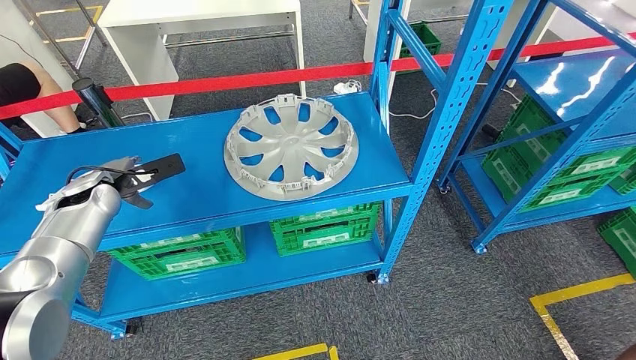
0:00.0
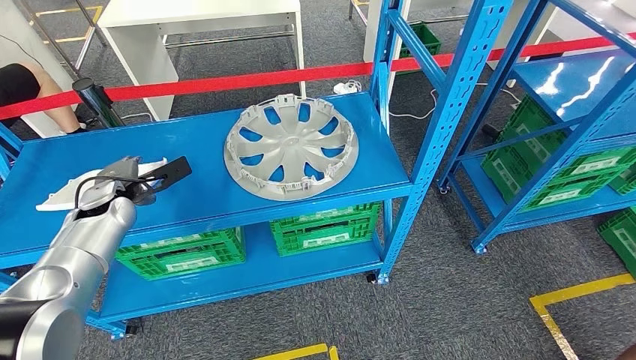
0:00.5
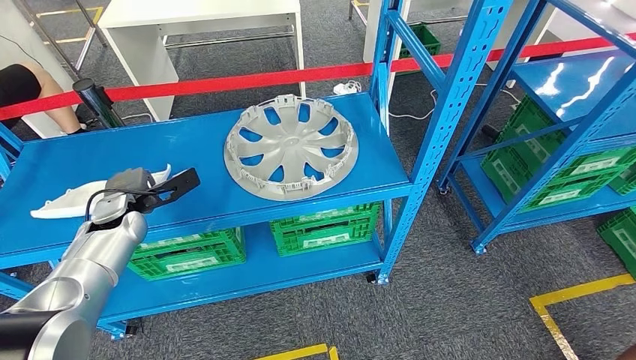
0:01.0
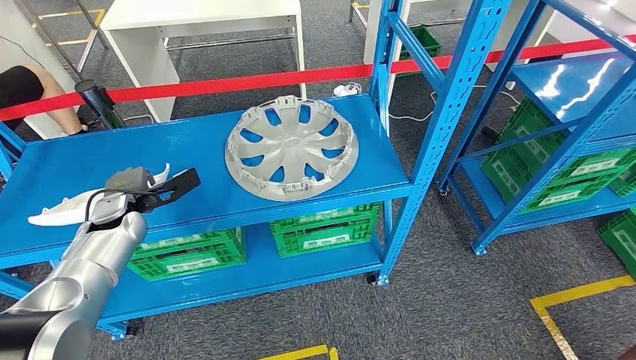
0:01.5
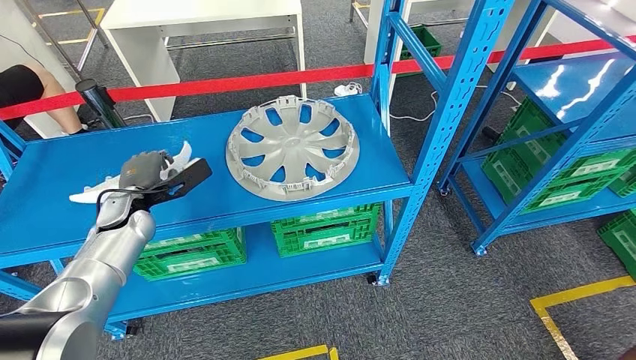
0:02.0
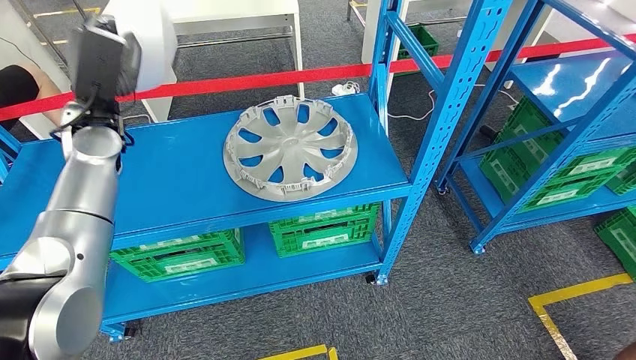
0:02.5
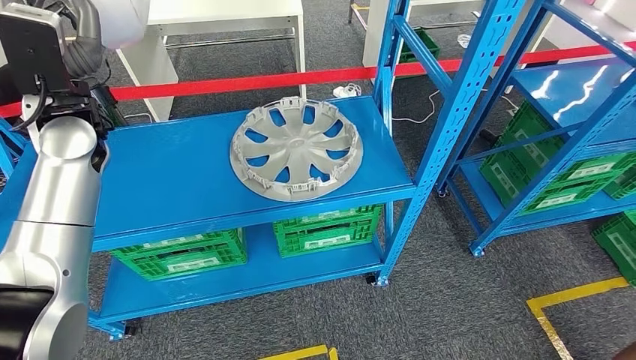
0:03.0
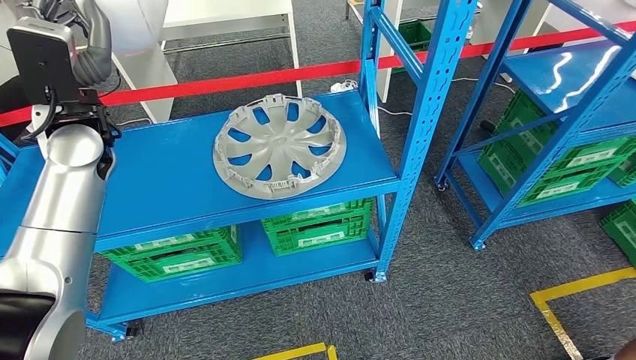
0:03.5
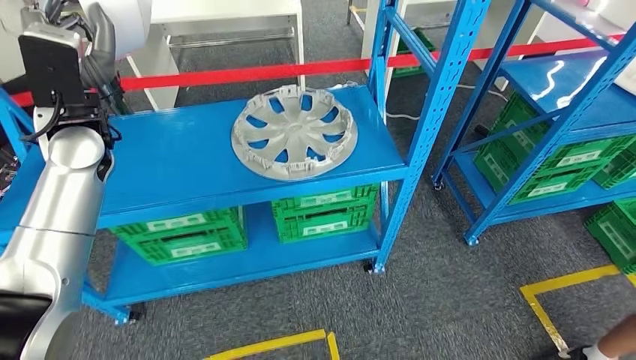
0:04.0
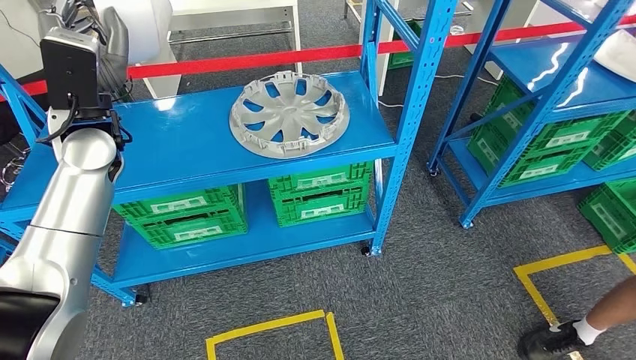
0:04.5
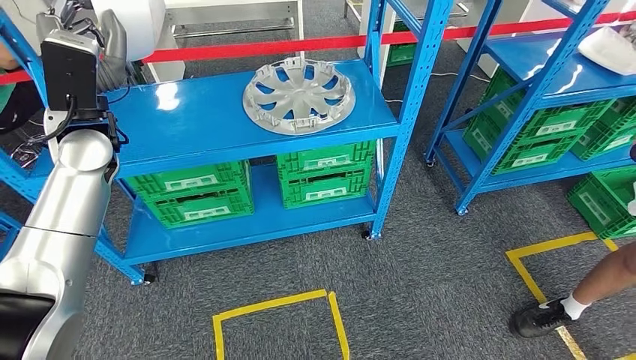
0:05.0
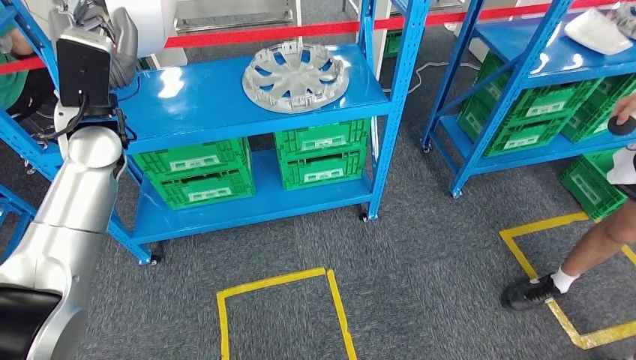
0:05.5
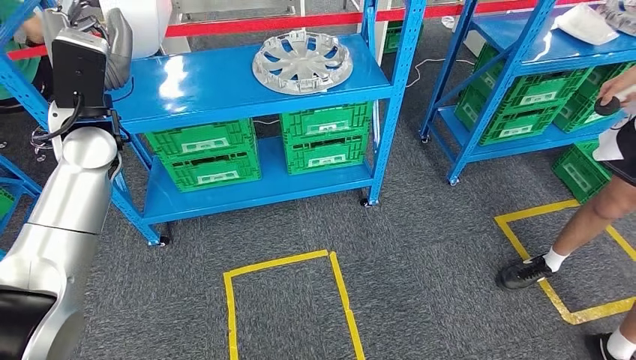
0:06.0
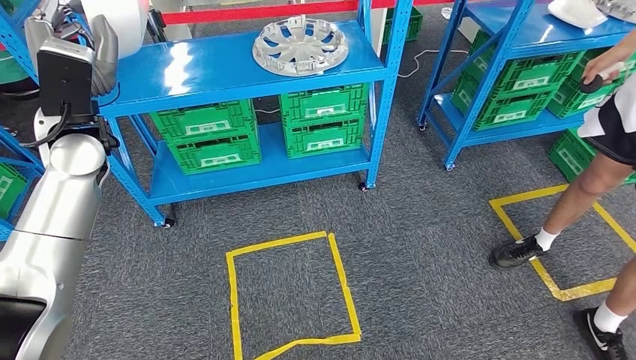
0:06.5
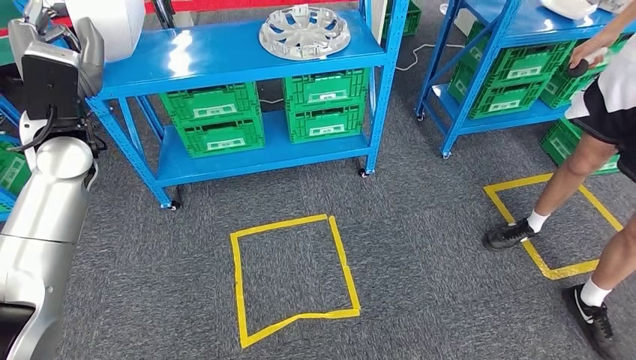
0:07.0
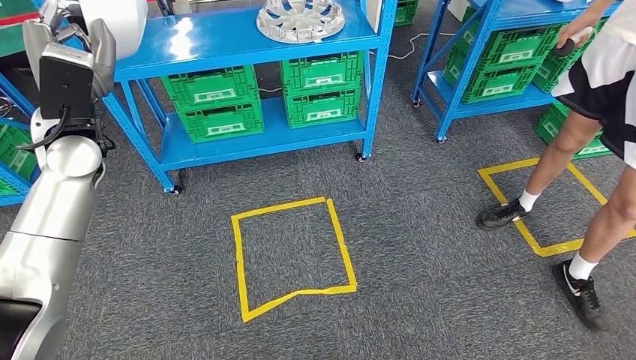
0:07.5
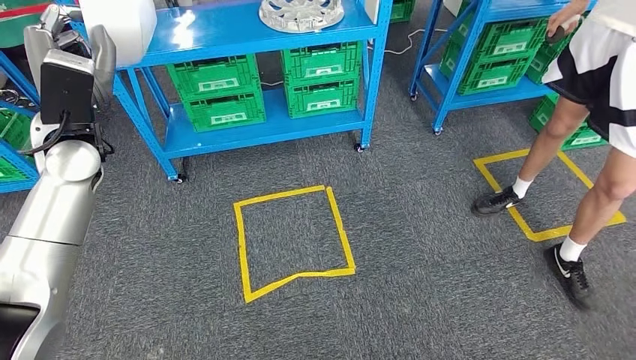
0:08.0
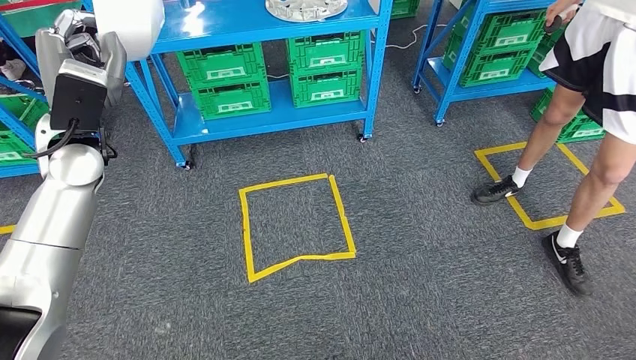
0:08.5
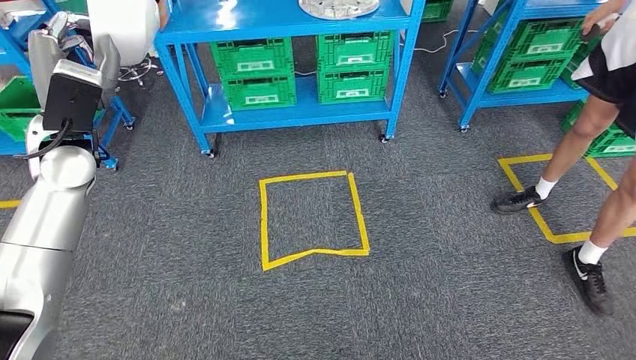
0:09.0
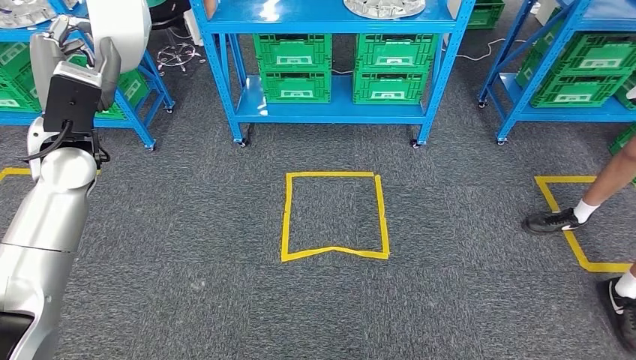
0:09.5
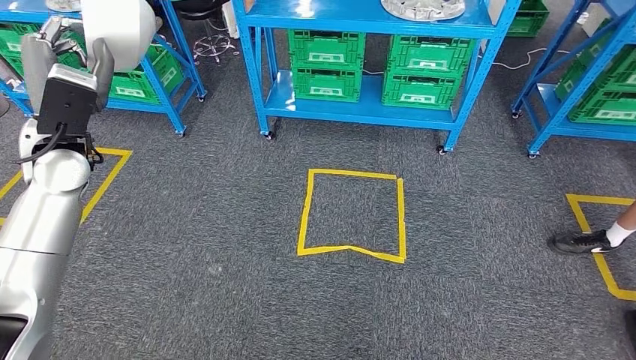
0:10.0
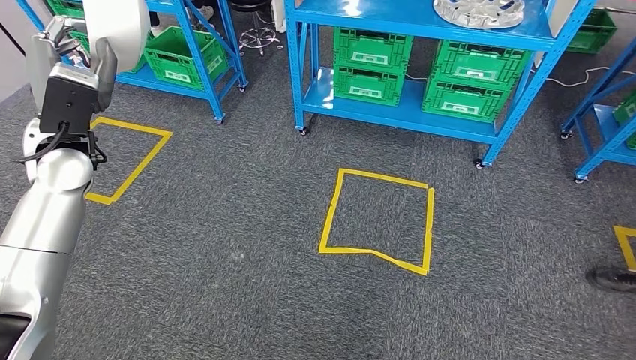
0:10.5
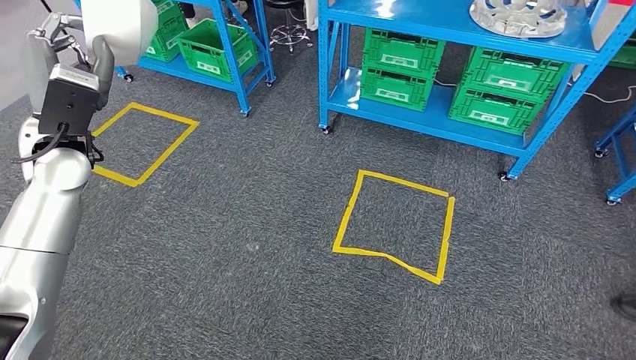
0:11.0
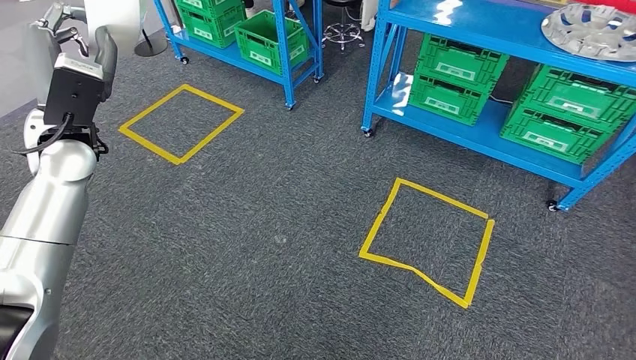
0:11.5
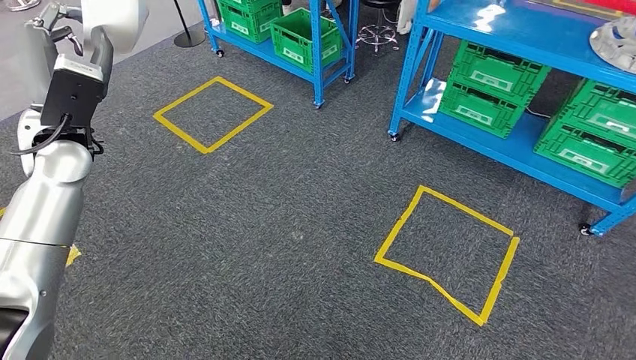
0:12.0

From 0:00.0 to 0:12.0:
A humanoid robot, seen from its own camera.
Step, from 0:00.0 to 0:03.5: Pick up the small parts from the shelf.
From 0:00.0 to 0:02.0: The left hand heads to the right, covering roughly 5 cm.

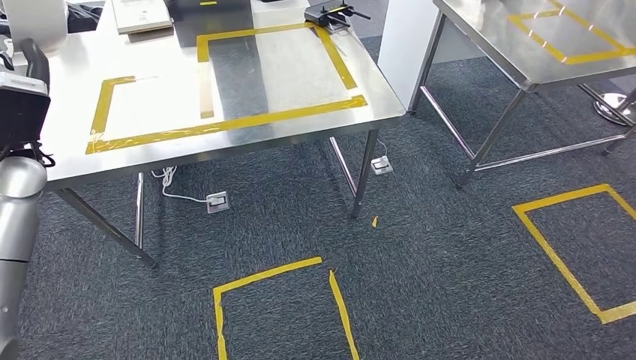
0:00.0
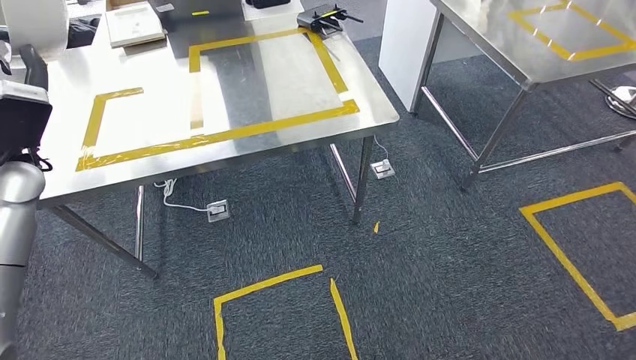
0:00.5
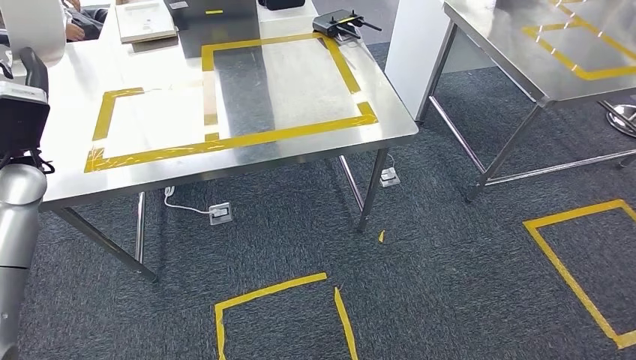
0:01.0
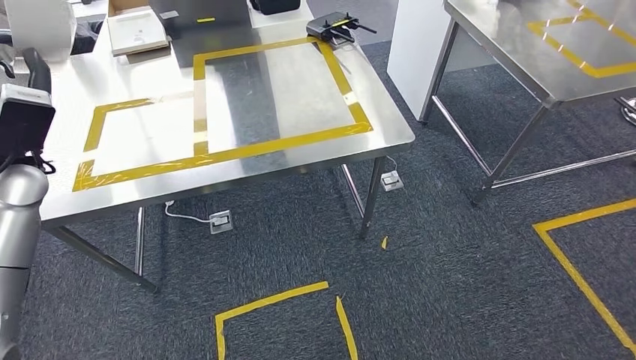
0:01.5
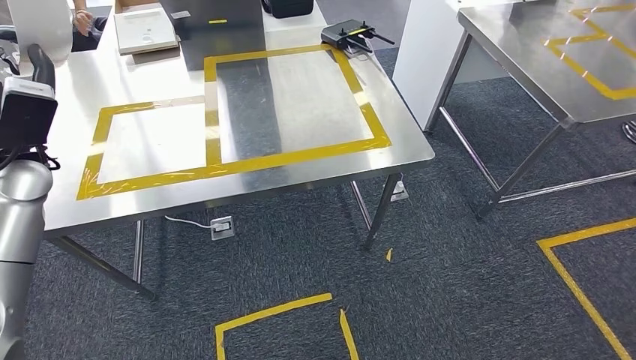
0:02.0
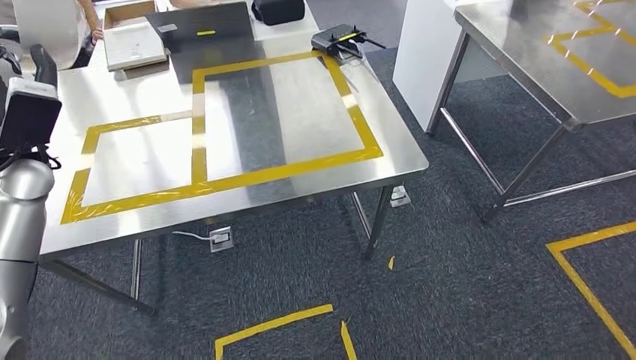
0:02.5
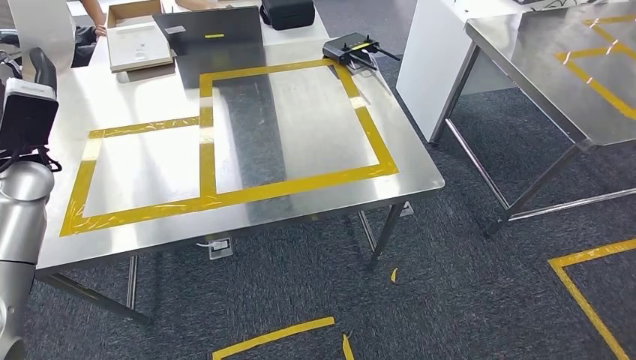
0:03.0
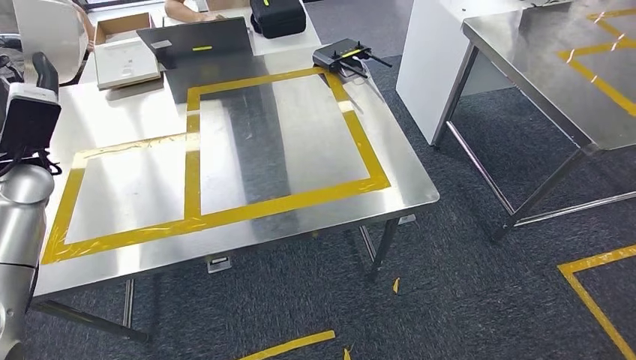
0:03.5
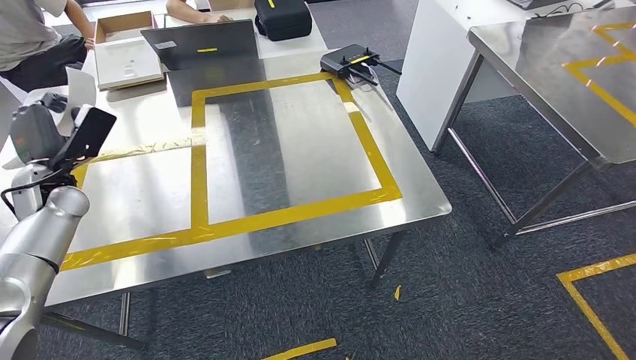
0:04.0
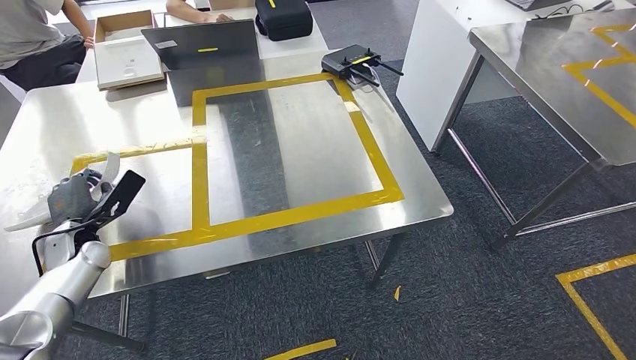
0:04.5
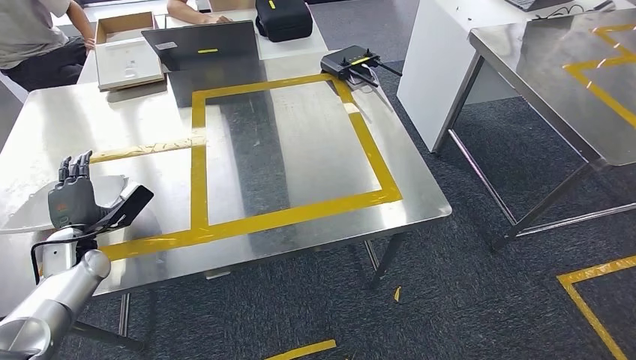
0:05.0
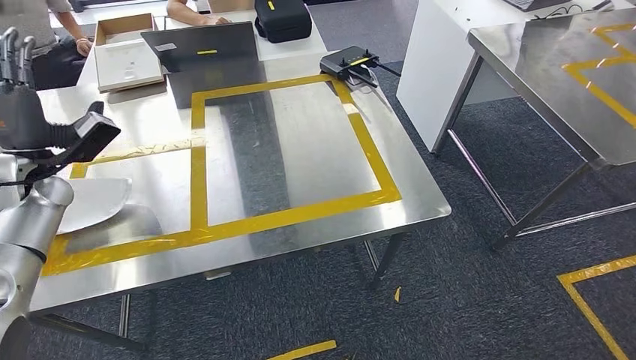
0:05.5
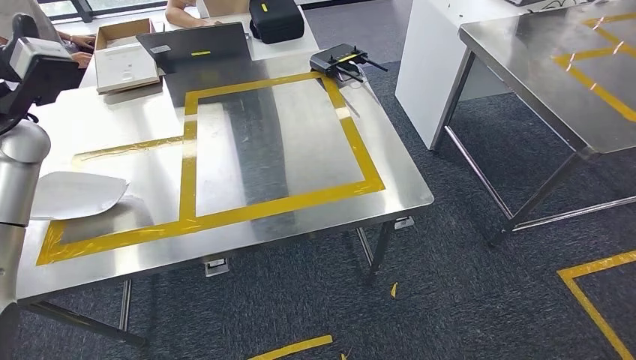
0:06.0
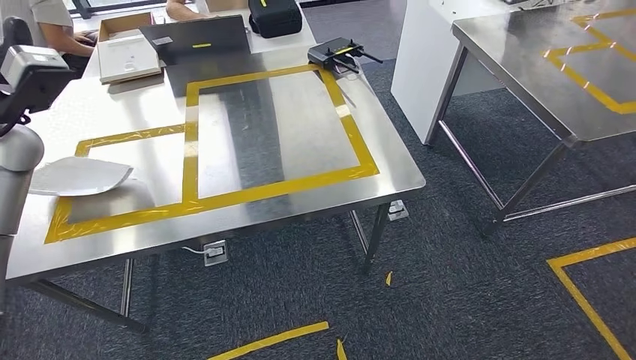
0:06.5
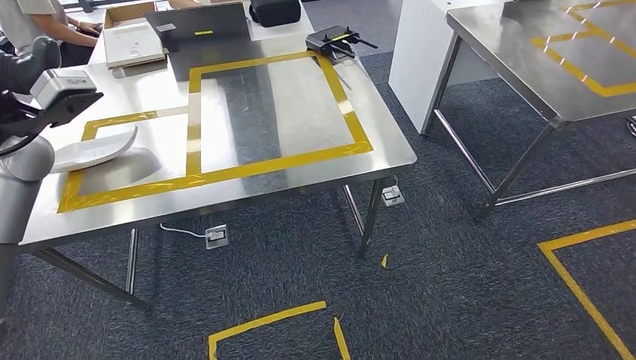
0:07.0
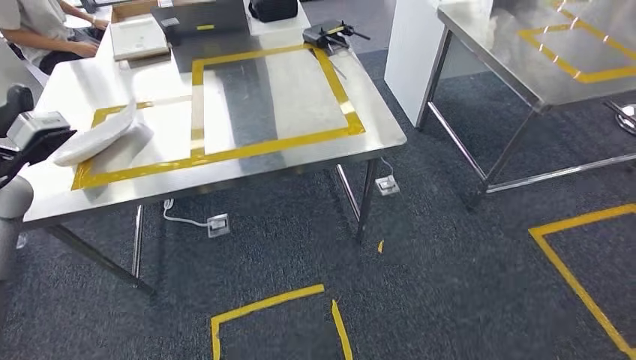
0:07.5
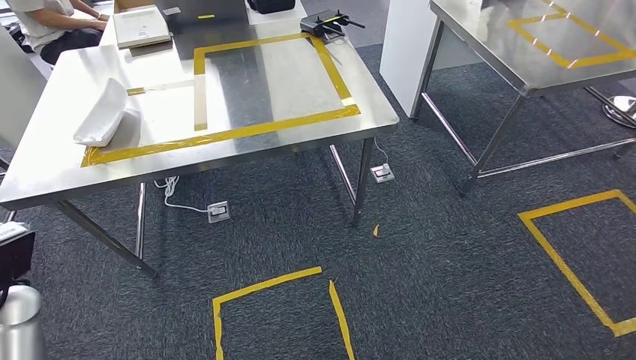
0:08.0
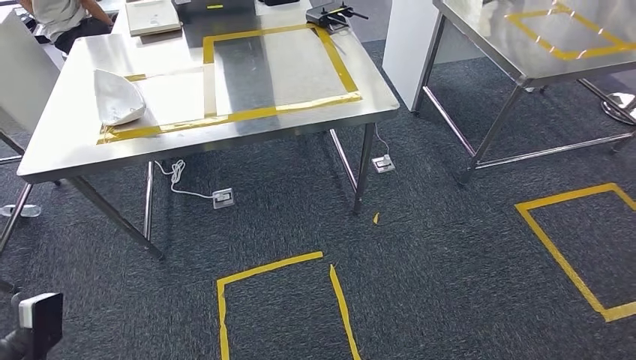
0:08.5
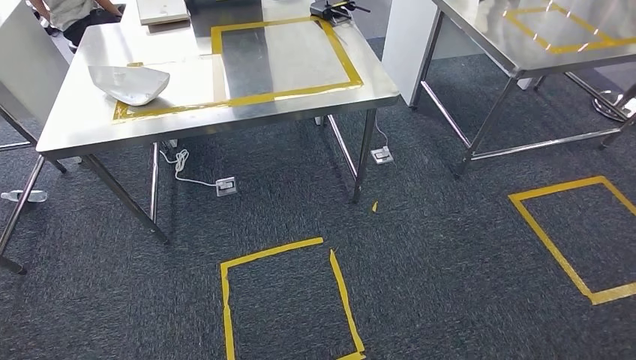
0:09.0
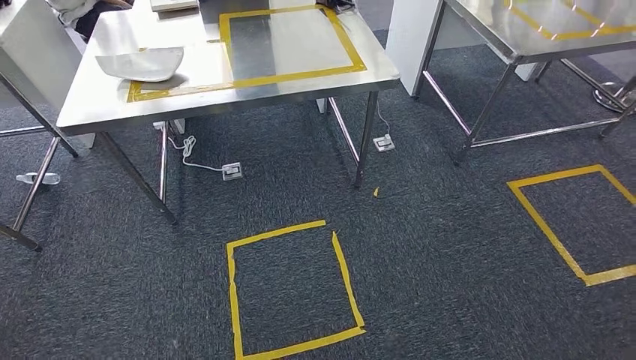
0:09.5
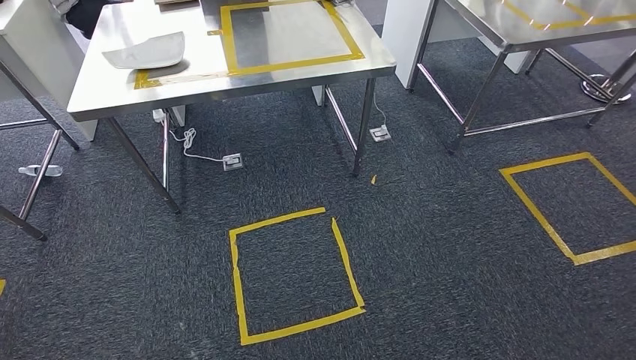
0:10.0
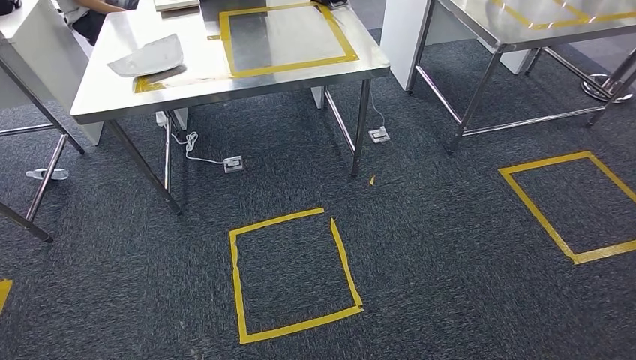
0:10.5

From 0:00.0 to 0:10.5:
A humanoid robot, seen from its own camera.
Step, from 0:00.0 to 0:03.5: Move the small parts to the workbench.
Step, from 0:04.0 to 0:06.0: Insert the small parts into the corresponding slots on the workbench.
Step, from 0:06.5 to 0:10.5: Return to the initial position at the workbench.
